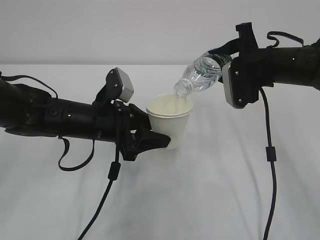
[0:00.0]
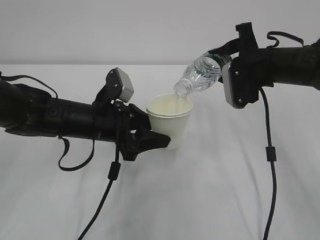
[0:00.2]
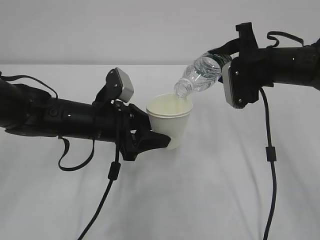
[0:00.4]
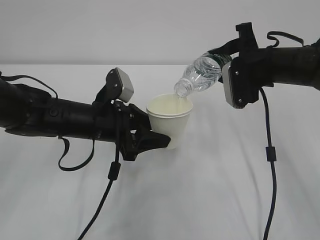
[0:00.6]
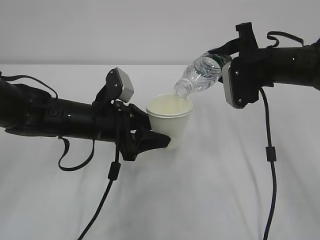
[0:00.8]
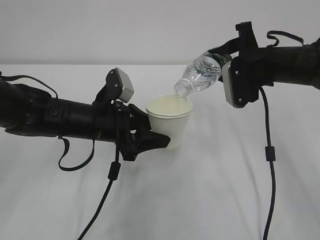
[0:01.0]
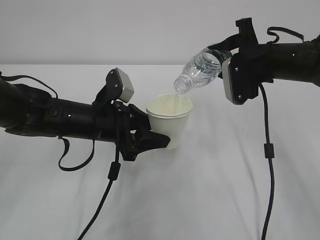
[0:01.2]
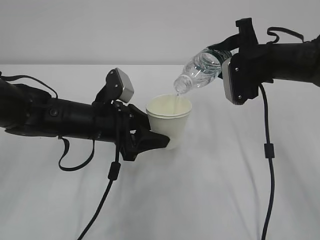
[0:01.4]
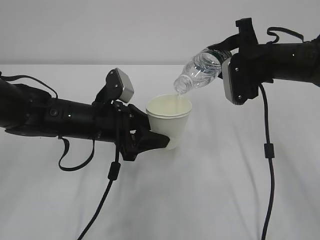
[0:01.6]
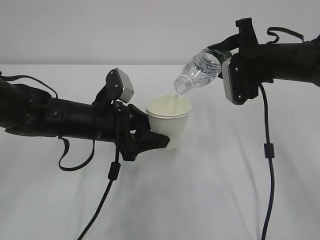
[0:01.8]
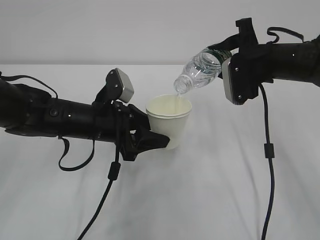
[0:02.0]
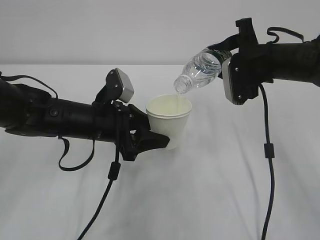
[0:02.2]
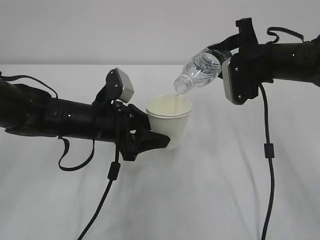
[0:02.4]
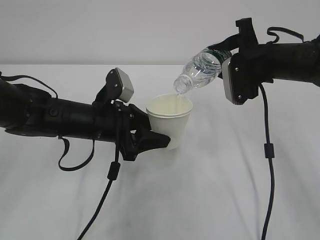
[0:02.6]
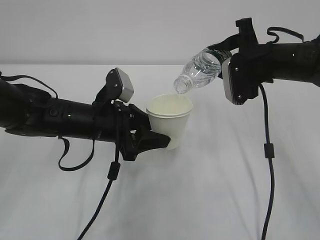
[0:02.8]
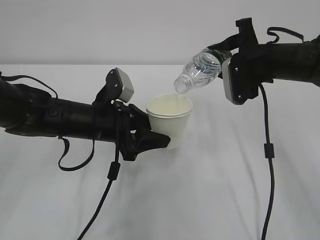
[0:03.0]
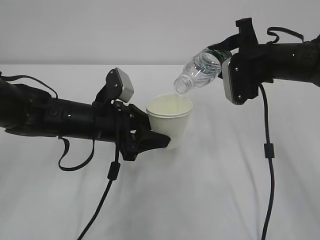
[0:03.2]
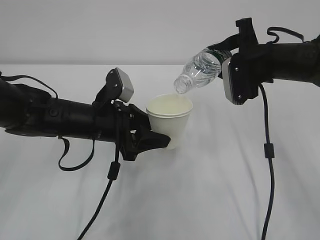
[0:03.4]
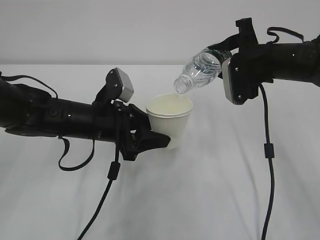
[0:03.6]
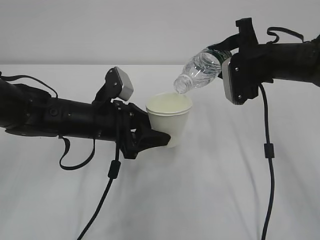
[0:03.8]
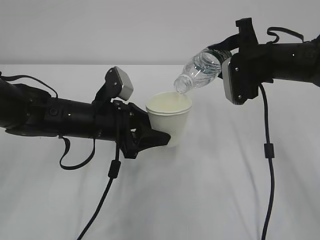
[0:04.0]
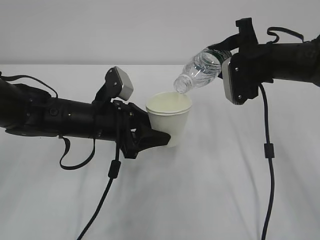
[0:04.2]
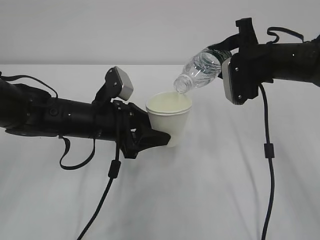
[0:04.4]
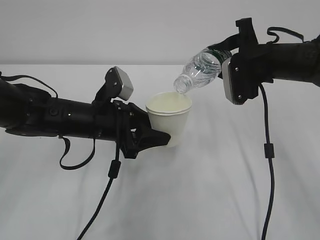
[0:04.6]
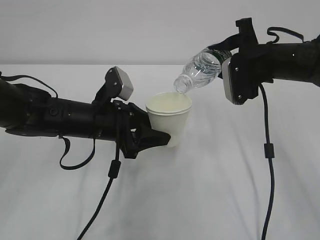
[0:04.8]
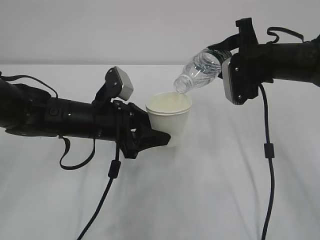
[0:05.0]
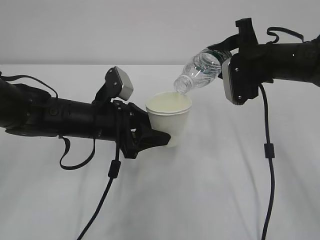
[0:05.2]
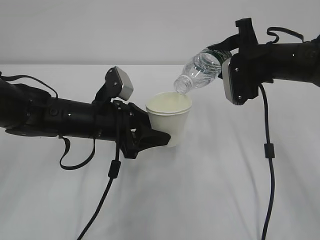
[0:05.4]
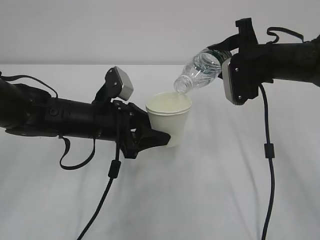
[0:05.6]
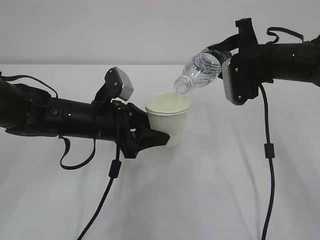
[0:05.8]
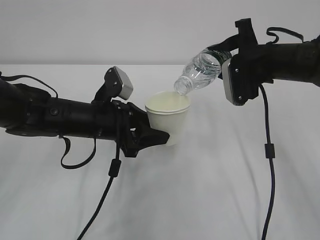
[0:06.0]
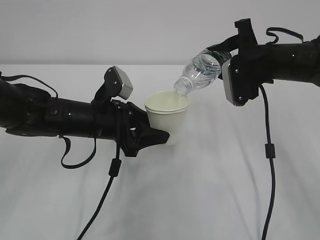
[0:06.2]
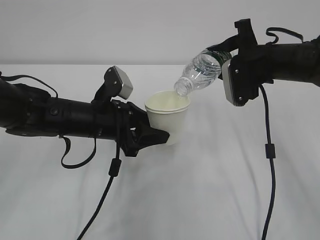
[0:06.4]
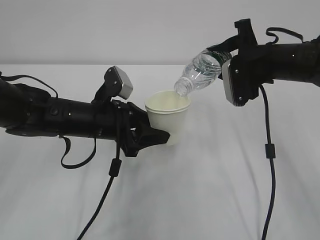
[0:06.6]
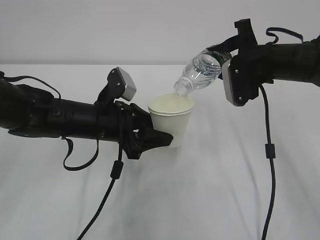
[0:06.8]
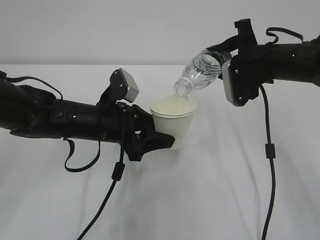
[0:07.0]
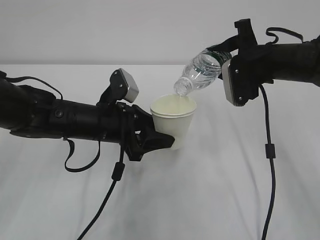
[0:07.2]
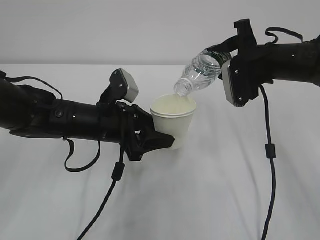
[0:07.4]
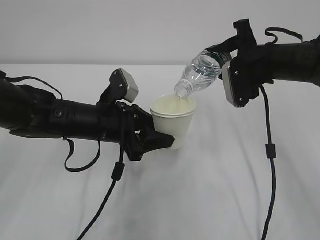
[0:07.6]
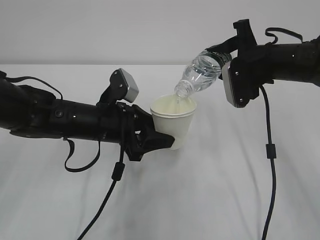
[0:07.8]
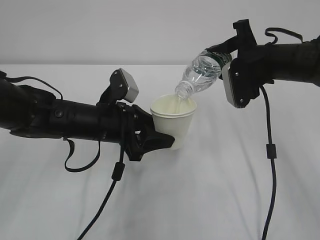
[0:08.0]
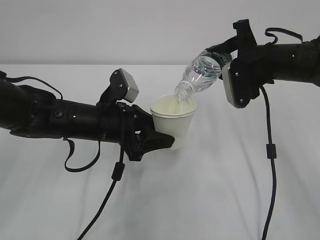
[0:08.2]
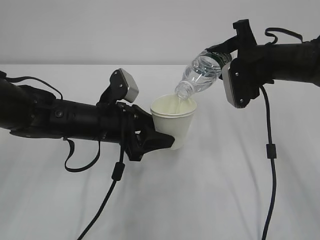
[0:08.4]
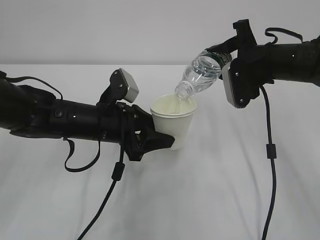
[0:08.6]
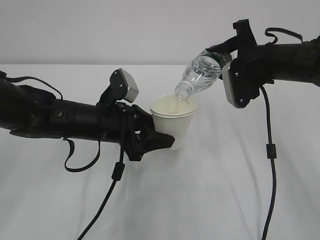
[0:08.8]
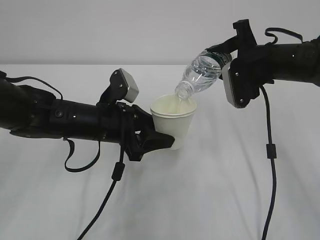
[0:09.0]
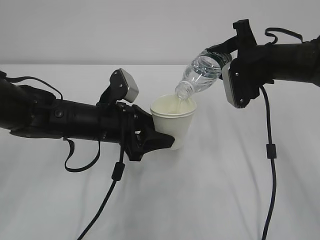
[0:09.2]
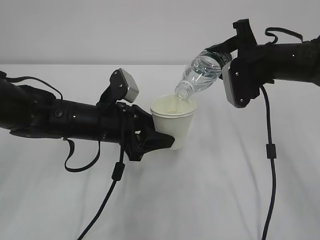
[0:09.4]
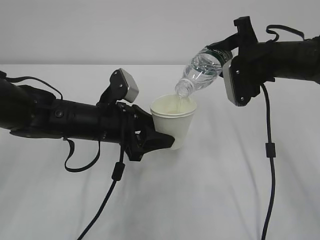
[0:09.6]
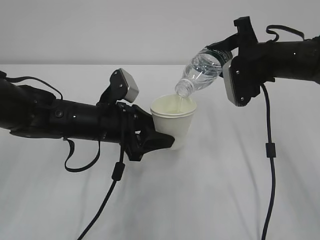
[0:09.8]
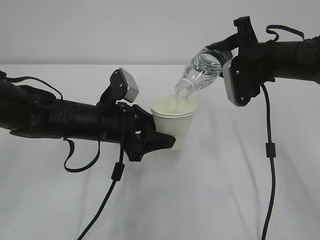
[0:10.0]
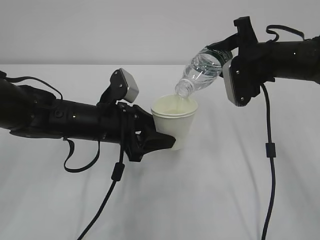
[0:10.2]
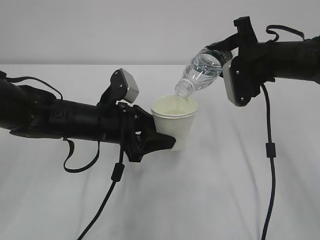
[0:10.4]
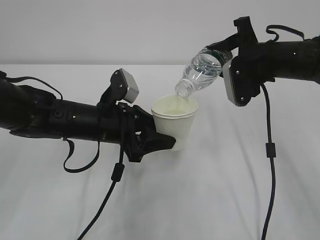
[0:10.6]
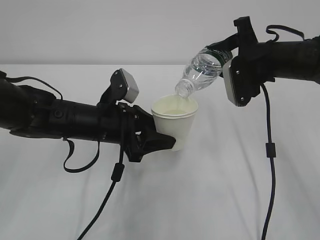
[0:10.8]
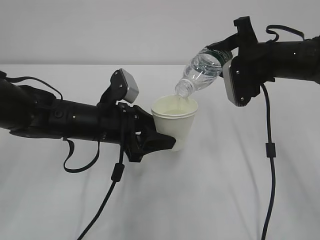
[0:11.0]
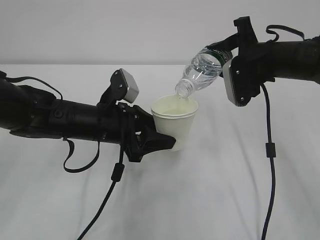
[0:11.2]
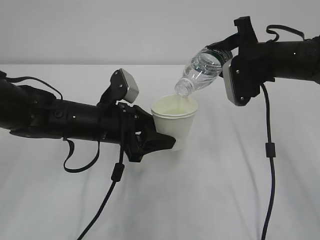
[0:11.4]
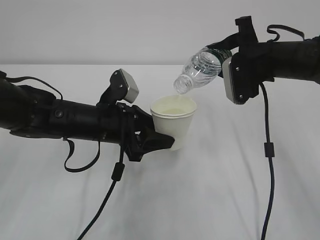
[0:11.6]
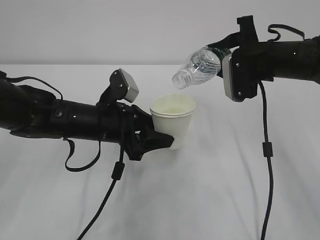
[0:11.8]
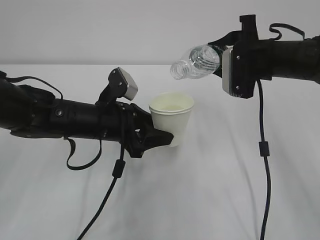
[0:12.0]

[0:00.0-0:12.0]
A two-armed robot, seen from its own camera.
0:00.0 to 0:07.6: The two grippers keep their place.
0:07.6 to 0:10.4: Both grippers stay put.
0:10.4 to 0:12.0: The grippers make only small movements.

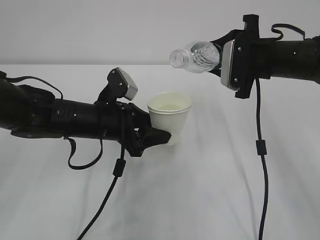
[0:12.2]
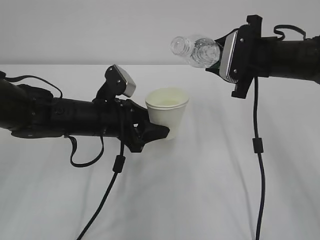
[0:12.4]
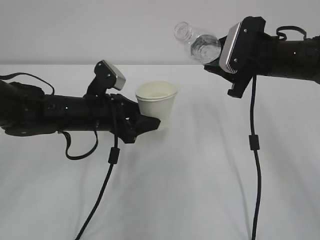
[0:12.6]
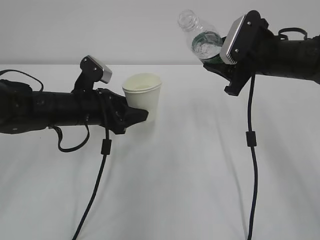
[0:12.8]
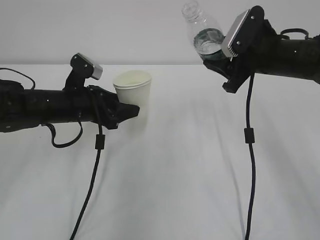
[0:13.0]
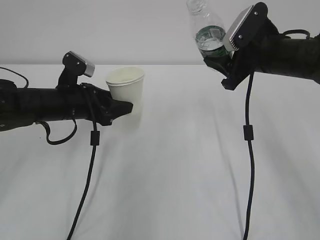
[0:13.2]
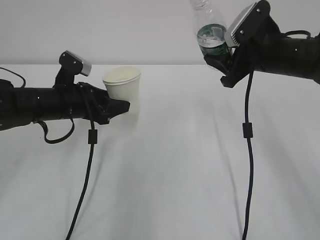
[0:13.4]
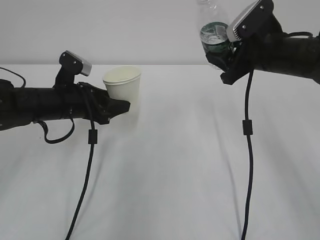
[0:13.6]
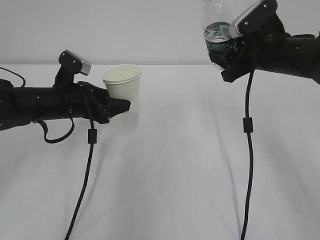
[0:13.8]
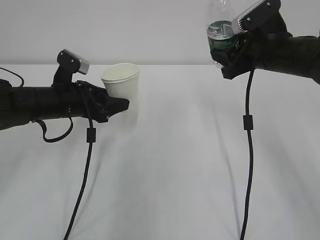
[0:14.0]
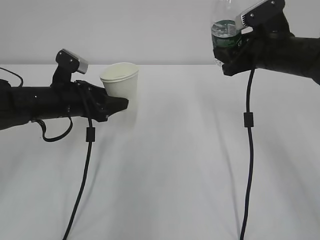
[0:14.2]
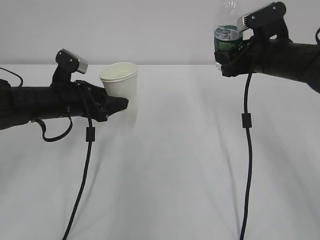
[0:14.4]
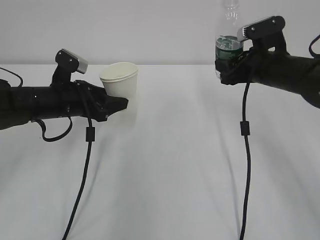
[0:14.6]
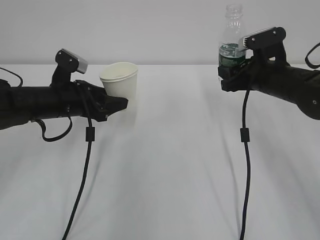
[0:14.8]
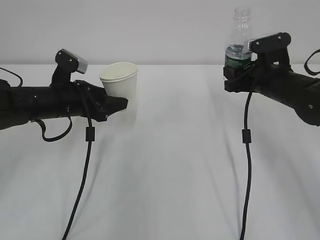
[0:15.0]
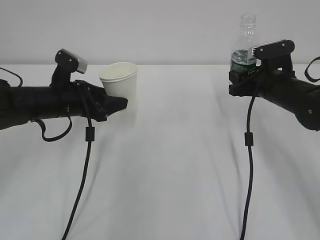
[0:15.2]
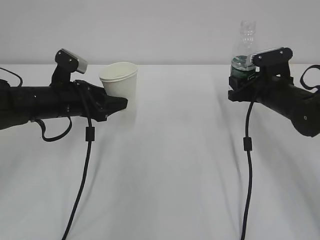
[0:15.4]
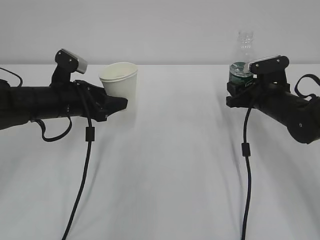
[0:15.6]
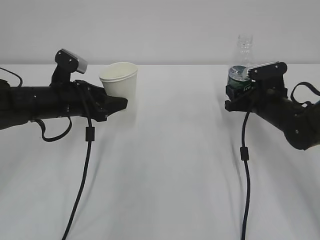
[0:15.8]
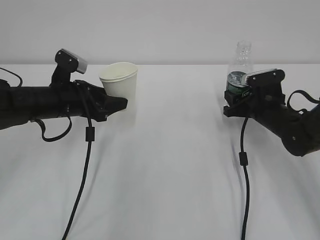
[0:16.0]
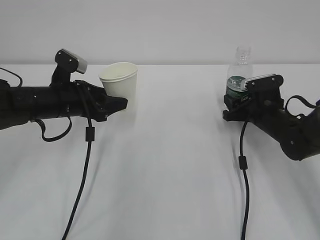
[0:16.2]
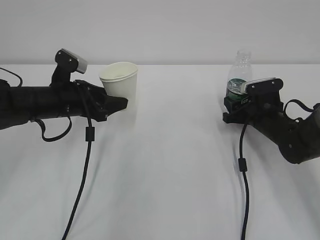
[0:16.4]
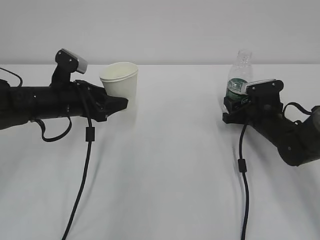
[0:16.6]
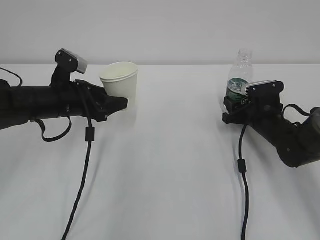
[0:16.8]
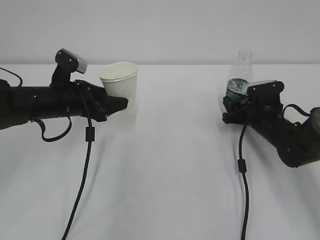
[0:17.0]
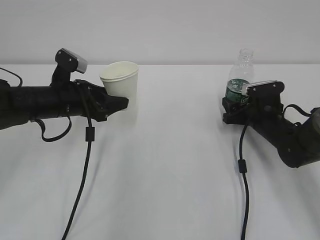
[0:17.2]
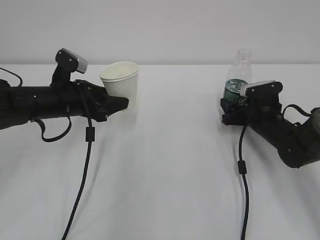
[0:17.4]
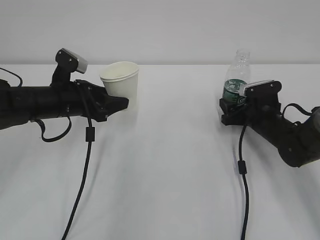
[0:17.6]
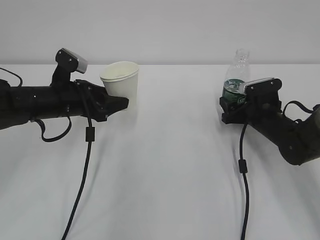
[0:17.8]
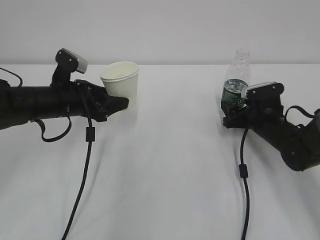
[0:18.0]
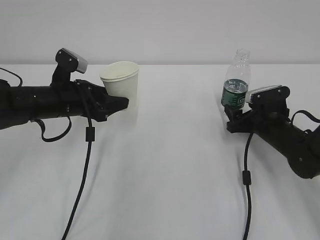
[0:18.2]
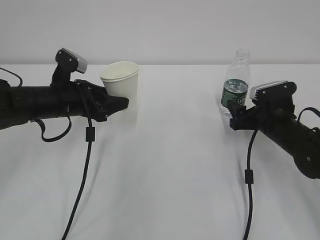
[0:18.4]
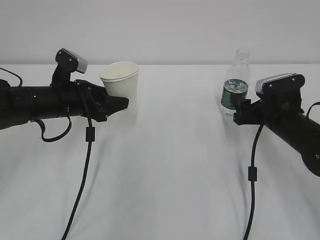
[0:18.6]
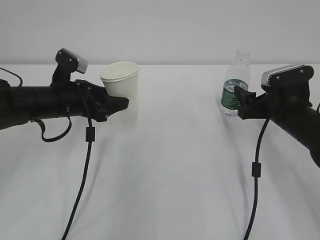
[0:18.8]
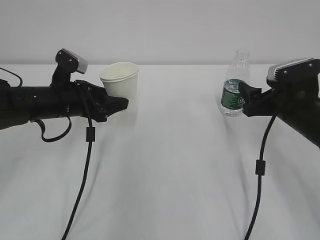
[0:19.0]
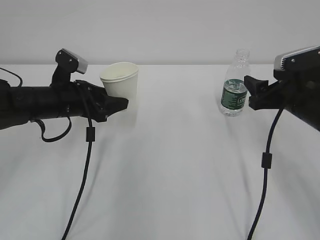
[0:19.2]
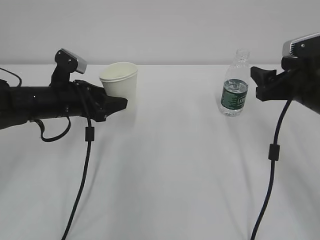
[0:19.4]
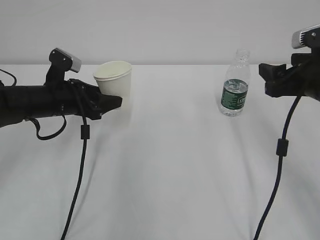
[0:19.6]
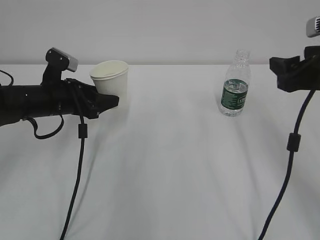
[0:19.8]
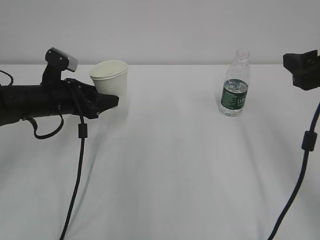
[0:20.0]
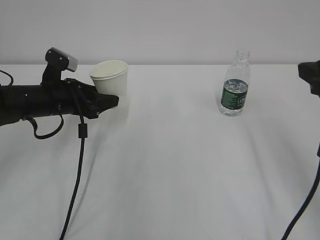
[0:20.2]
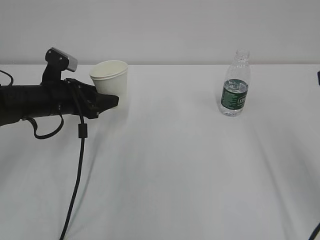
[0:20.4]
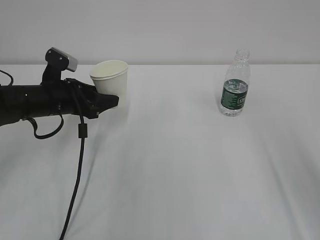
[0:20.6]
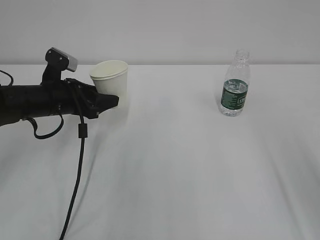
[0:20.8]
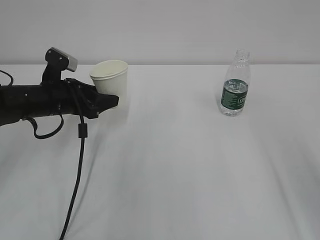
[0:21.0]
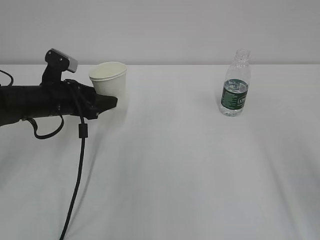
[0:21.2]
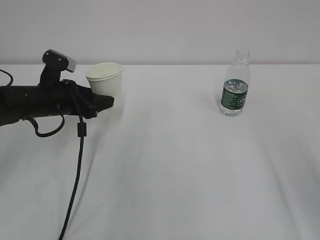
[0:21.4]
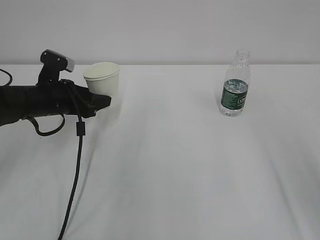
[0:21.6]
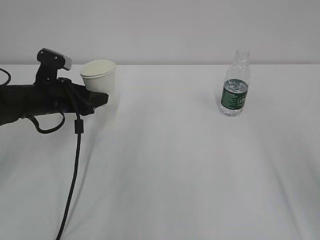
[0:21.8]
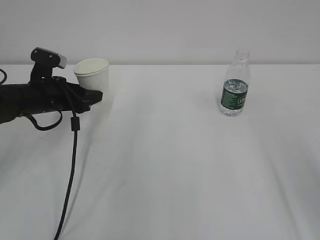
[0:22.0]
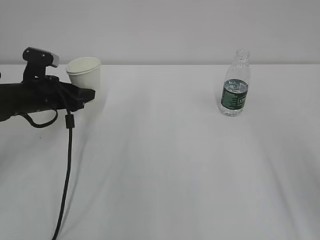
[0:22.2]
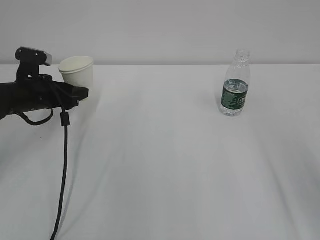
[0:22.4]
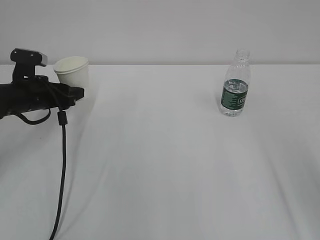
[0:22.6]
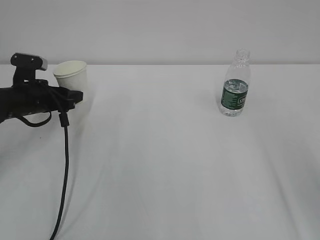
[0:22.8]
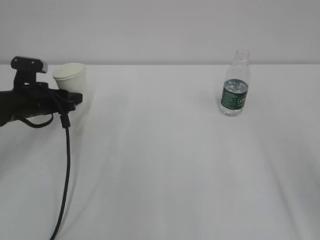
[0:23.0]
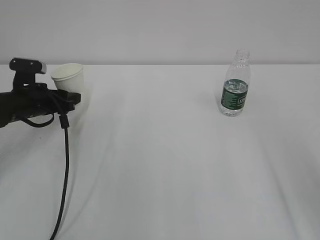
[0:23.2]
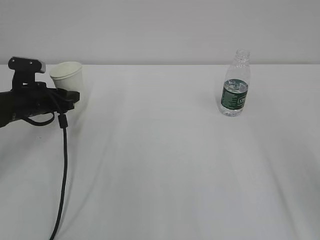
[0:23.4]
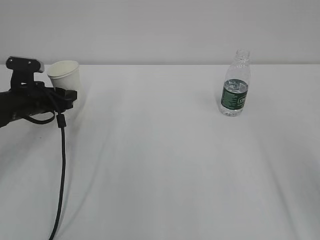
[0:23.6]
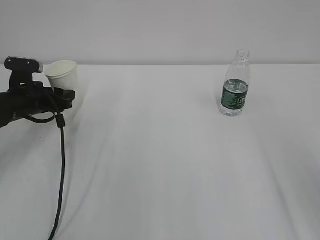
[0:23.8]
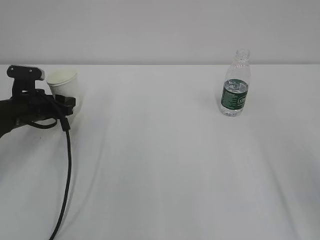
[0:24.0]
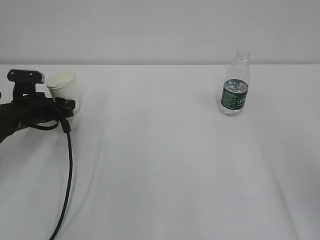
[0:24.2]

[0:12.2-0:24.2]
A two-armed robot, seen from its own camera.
0:12.2 to 0:13.8: The left gripper moves to the left, about 10 cm.
0:13.8 to 0:15.2: The right gripper shifts some 10 cm downward.
0:15.2 to 0:16.6: The right gripper heads downward, covering roughly 10 cm.
0:16.6 to 0:18.2: The right gripper opens its fingers.
0:18.2 to 0:19.8: The right gripper shifts about 20 cm upward and backward.
0:19.8 to 0:21.2: The right gripper goes about 15 cm backward and upward.
0:21.2 to 0:22.6: The left gripper travels to the left by some 5 cm.
0:22.6 to 0:24.2: The left gripper changes place by approximately 5 cm.
